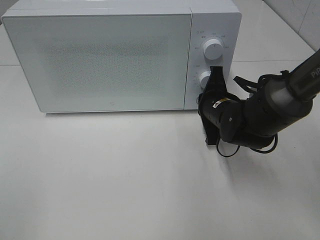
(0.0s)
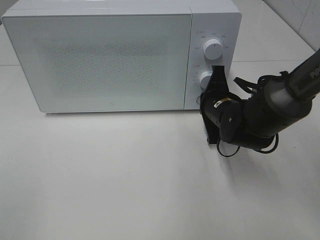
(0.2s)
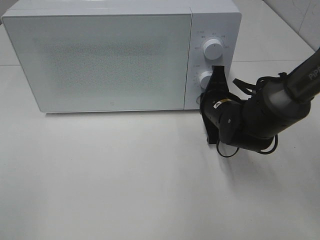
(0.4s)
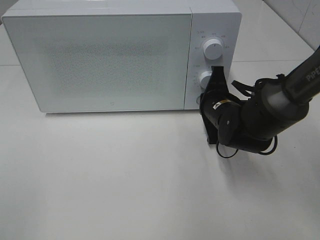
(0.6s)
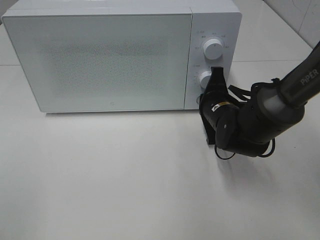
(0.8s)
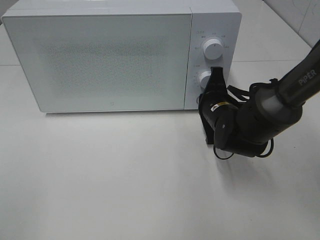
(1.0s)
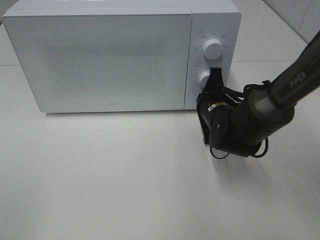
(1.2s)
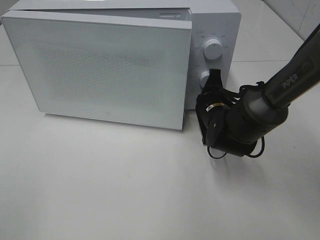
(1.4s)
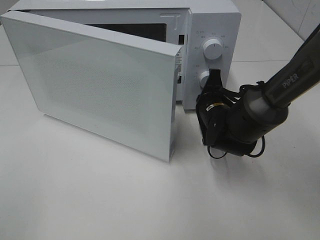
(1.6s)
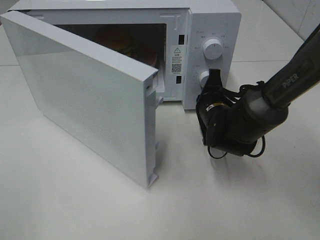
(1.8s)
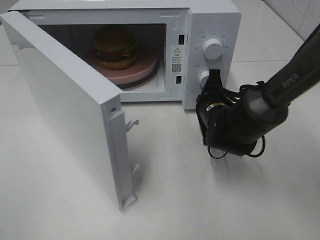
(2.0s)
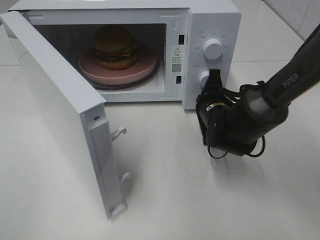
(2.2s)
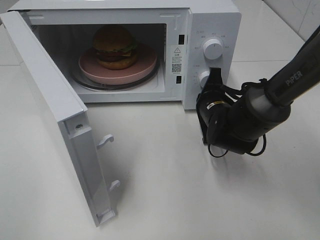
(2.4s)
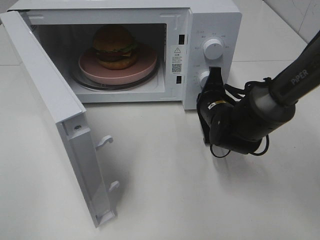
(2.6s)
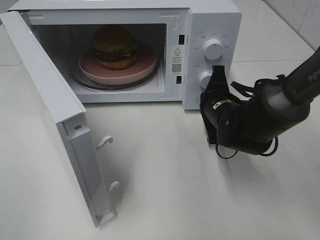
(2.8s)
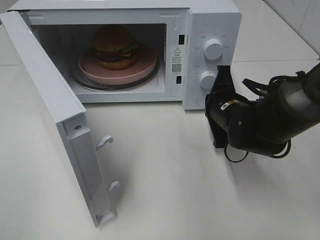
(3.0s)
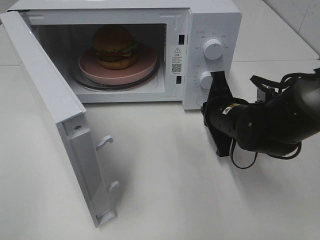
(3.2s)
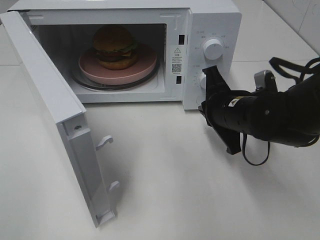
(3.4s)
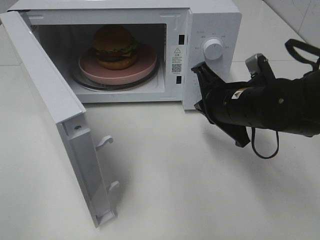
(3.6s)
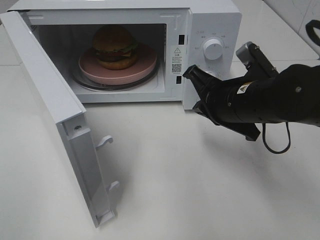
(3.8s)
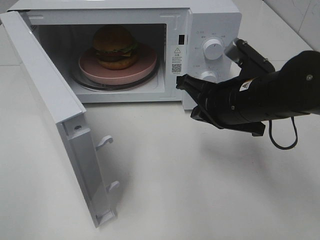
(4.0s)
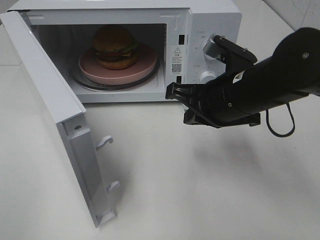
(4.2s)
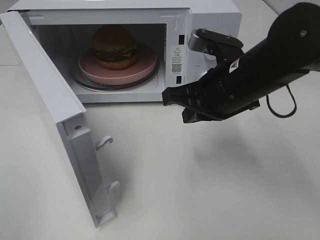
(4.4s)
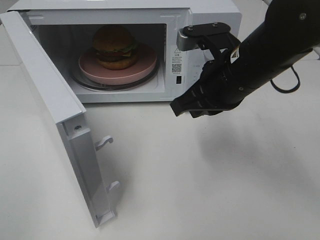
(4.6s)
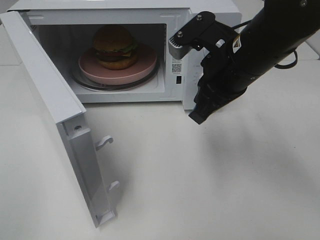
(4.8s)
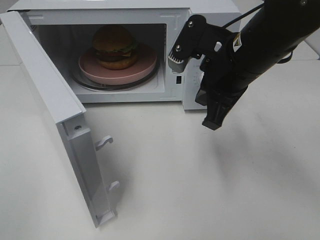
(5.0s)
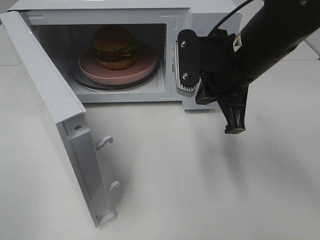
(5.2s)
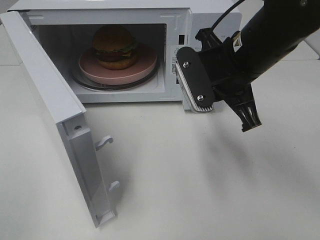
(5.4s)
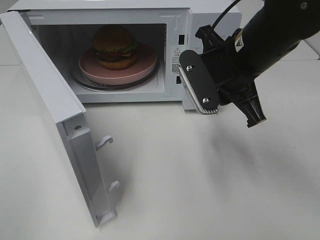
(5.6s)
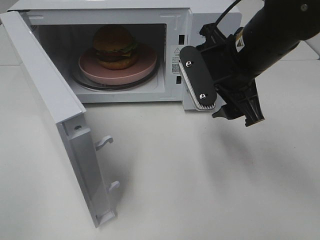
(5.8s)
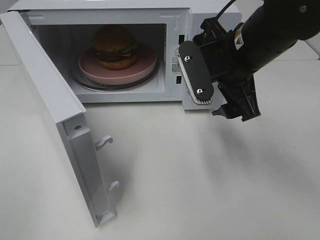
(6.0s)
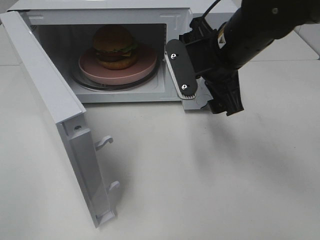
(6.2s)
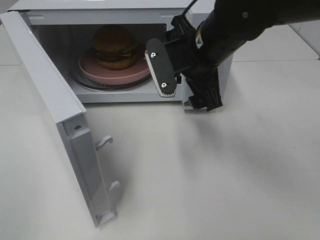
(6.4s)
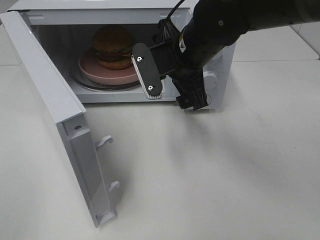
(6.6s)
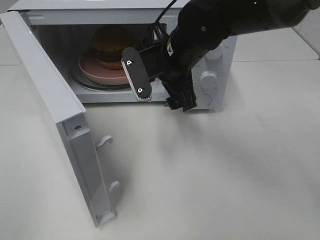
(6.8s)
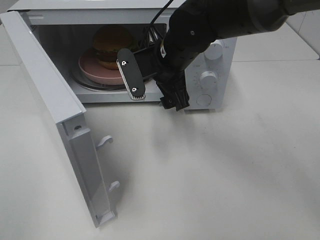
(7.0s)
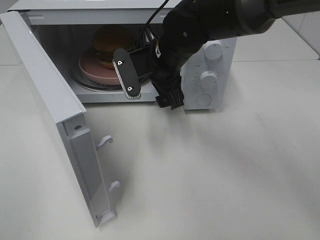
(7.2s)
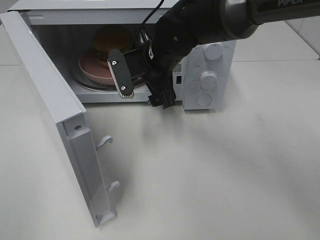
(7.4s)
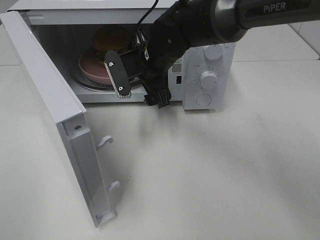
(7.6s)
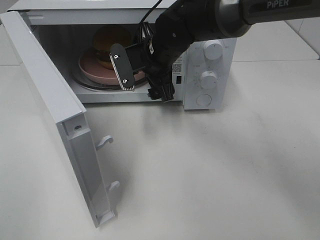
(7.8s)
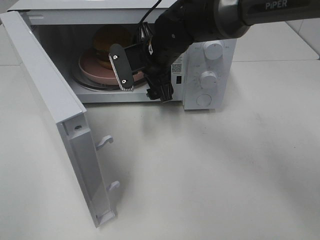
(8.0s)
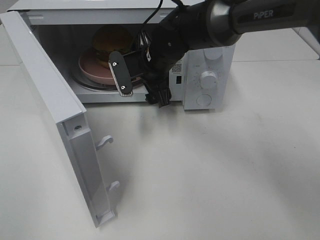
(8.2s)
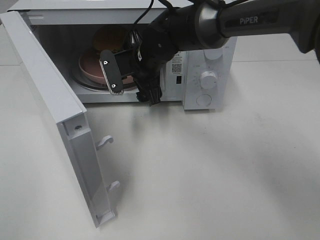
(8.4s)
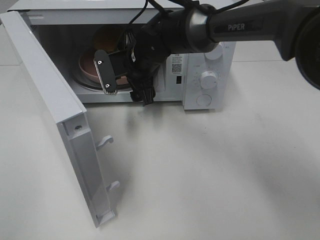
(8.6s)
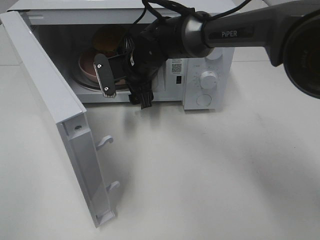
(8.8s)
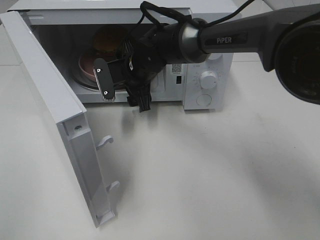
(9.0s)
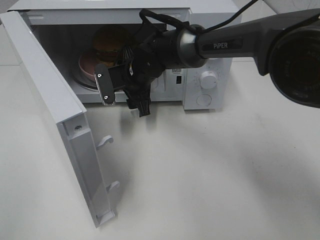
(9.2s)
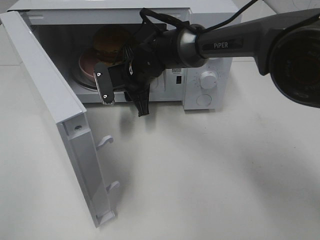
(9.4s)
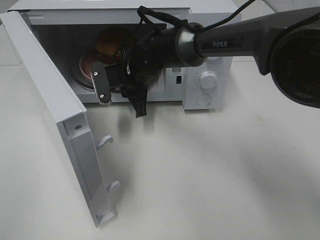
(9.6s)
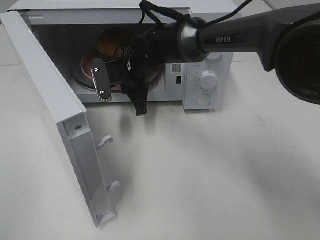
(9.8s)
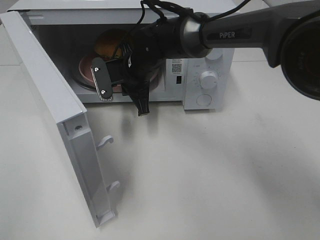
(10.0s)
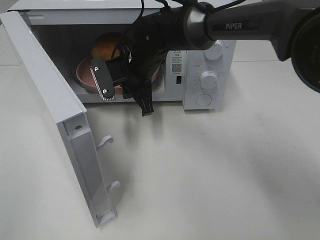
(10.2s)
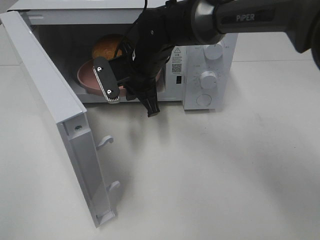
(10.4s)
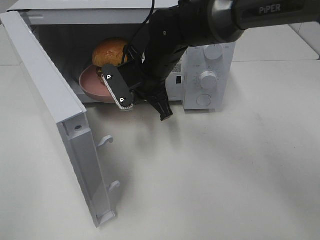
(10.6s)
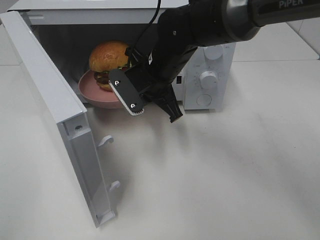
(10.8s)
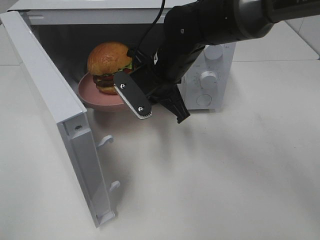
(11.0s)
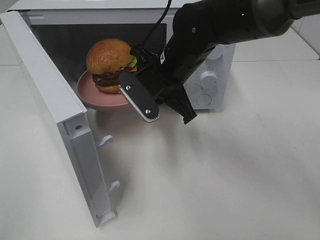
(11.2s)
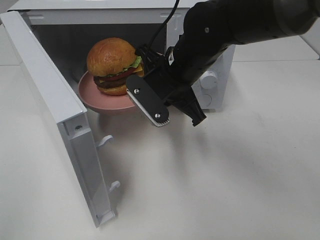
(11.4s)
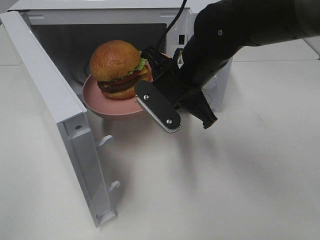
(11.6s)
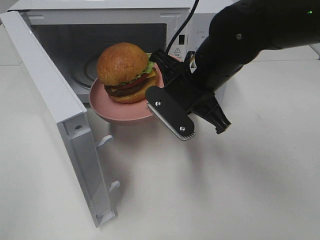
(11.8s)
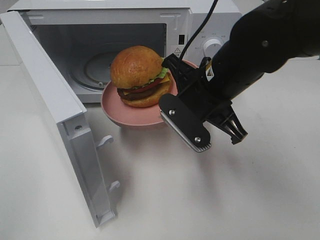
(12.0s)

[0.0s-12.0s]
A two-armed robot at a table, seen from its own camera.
Task of the whole recording: Heat the burger.
Step, 0.0s to 2.8s: Right hand: press the switch.
Step, 3.0s to 9.6s: Right hand: grab the plate with the hamburger.
0.0s to 1.6s: The grippers stay close to where they were, moving slightly.
3.0s to 4.4s: The right gripper moves upward and backward, about 10 cm.
4.4s to 6.0s: The right gripper opens its fingers.
6.0s to 7.6s: The right gripper heads to the left, forward and downward, covering some 15 cm.
7.6s to 9.0s: The right gripper shifts by some 5 cm.
9.0s to 10.4s: The right gripper closes up.
10.4s to 12.0s: The right gripper goes roughly 15 cm backward and to the right.

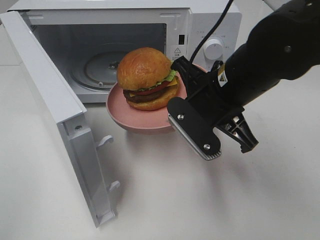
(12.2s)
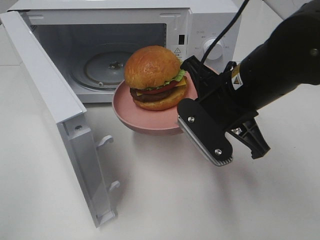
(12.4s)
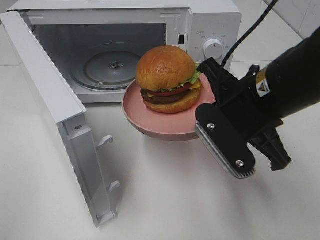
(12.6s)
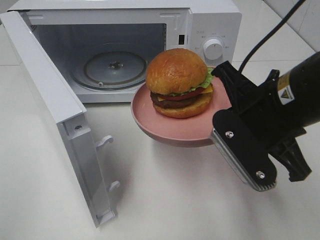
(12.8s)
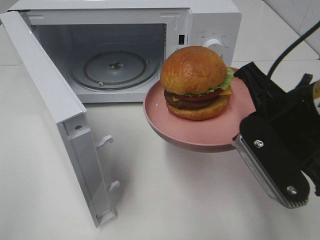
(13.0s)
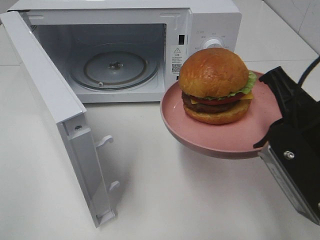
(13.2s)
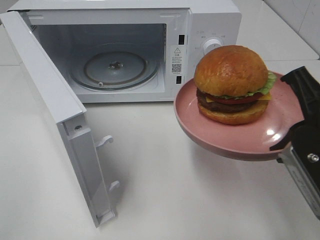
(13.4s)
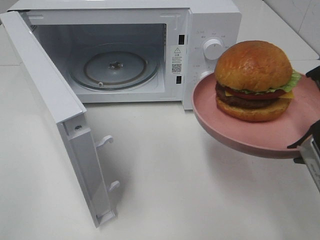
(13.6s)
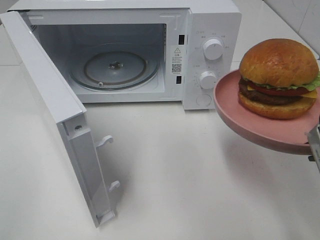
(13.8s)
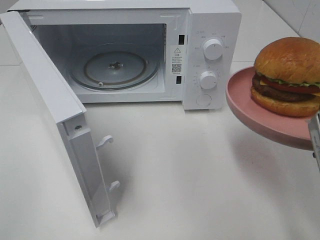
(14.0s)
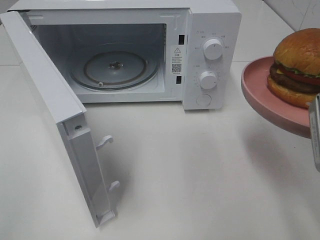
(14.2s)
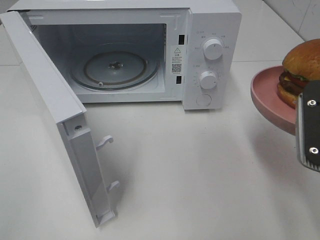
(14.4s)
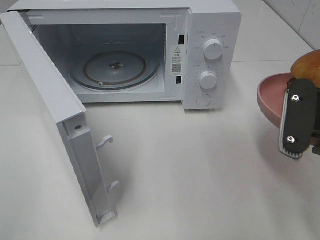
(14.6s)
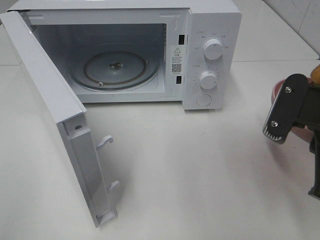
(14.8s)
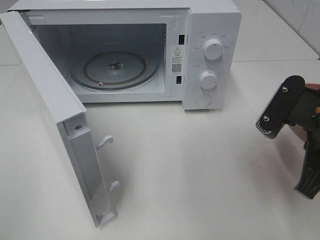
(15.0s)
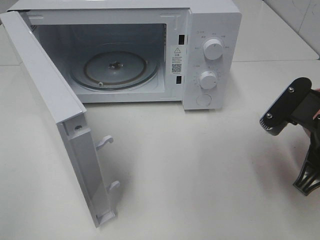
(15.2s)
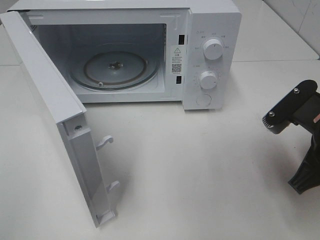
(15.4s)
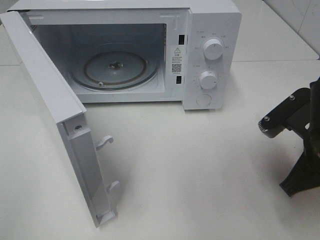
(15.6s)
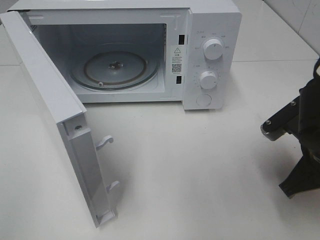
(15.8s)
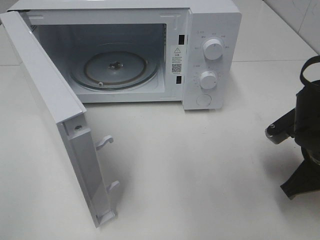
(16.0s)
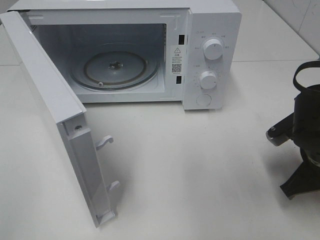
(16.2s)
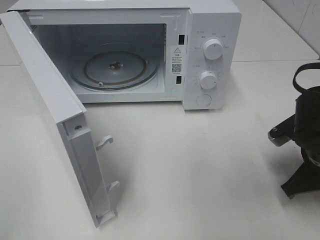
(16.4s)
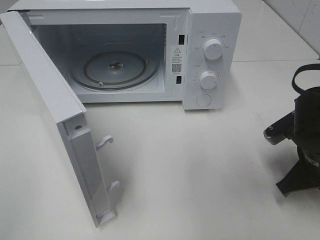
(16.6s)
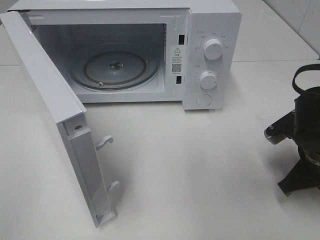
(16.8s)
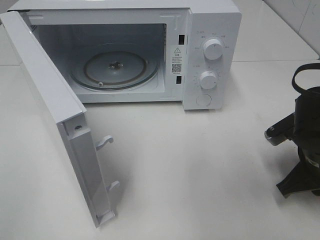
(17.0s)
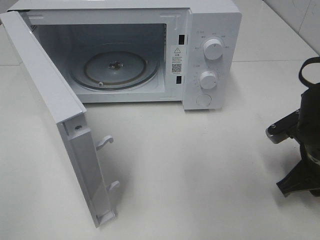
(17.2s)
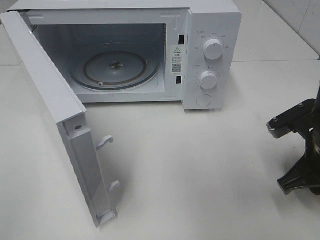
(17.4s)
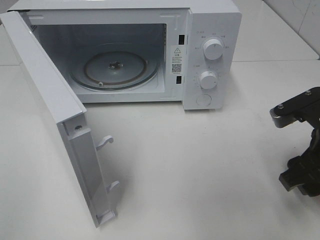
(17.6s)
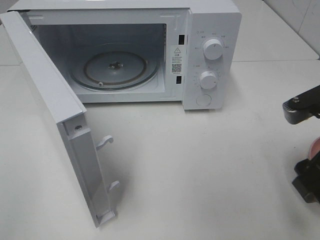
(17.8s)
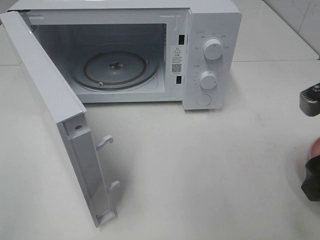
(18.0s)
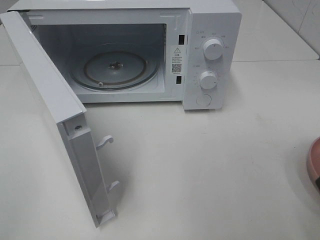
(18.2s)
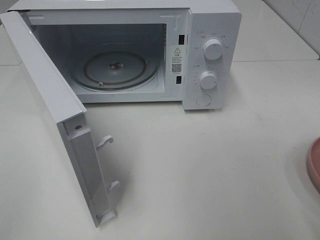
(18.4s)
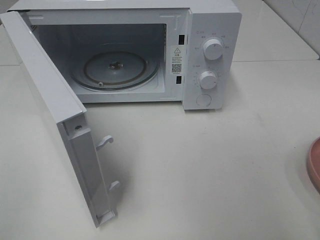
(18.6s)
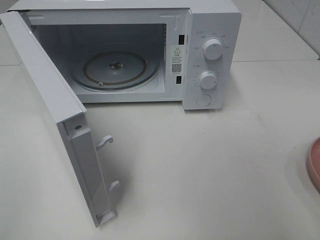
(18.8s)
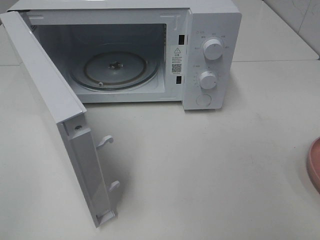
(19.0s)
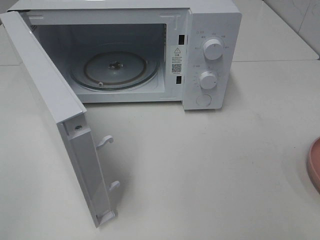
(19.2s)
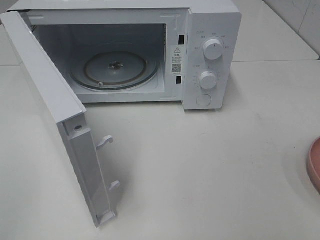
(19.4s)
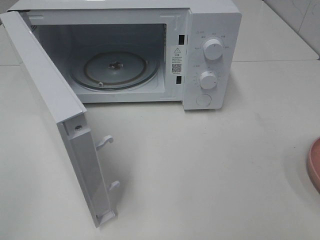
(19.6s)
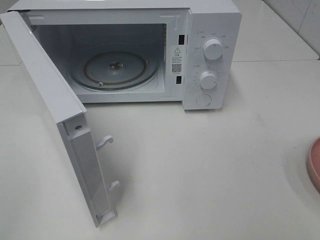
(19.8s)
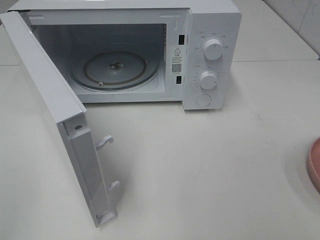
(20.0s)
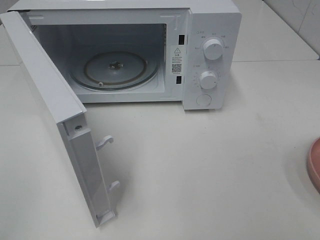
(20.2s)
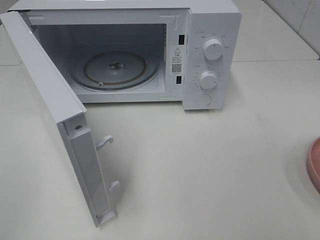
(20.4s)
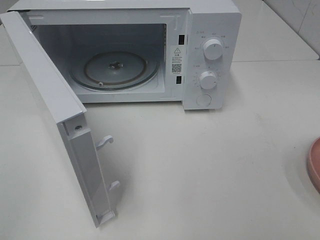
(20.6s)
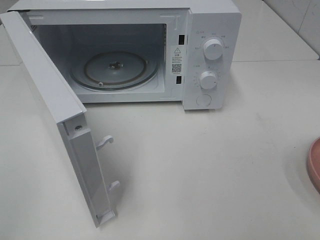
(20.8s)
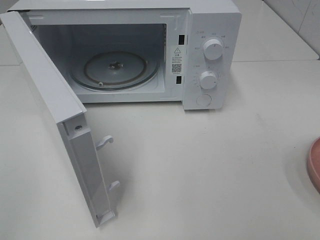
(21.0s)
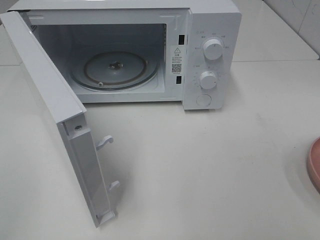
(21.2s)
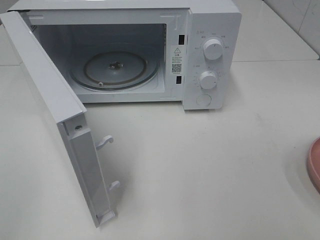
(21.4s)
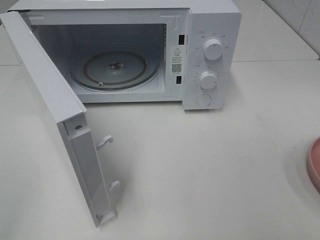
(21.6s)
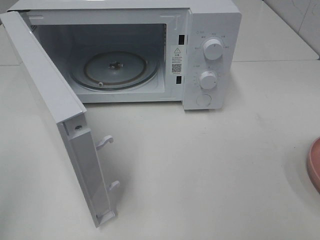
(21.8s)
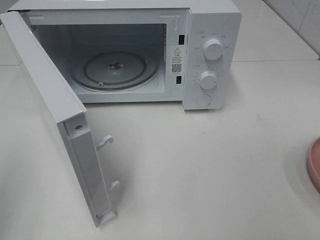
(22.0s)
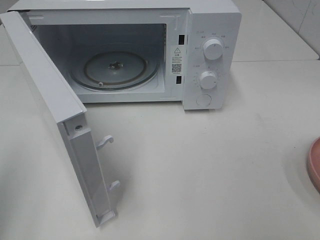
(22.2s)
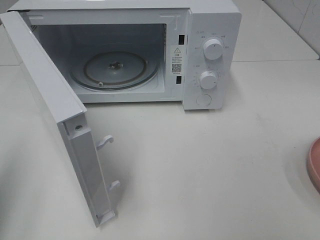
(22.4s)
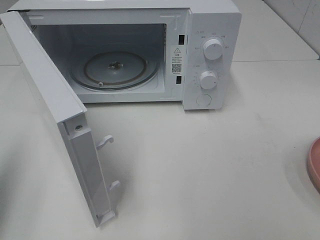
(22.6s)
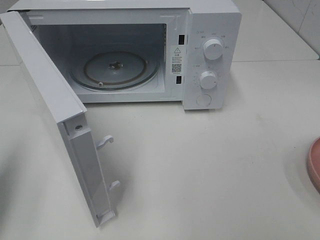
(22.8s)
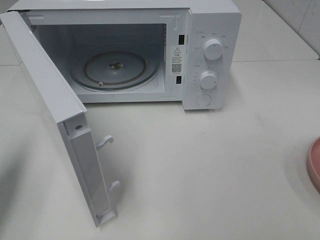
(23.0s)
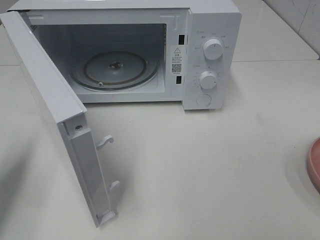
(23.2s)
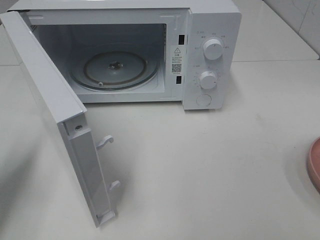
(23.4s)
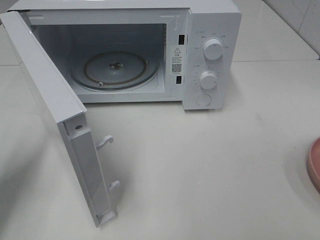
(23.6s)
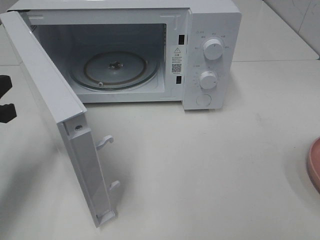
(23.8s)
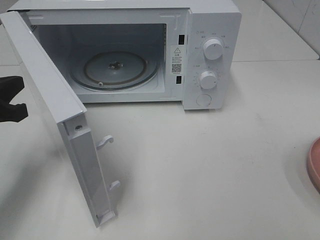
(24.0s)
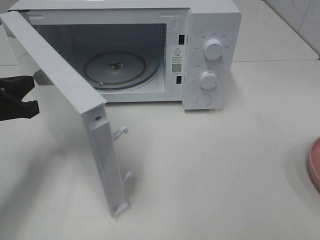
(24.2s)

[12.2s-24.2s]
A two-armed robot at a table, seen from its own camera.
Task of the whole recording: Heat the burger.
Step, 12.2s to 17.2s: Right hand: place the plate on the table.
12.2s to 13.8s: The right gripper heads backward, to the right and upward, covering approximately 20 cm.
13.8s to 15.2s: The right gripper is displaced downward and forward by approximately 10 cm.
15.2s to 16.6s: The right gripper heads downward, covering roughly 10 cm.
16.6s to 18.2s: The right gripper is displaced upward and backward by about 20 cm, and opens.
18.2s to 19.8s: The right gripper travels backward and to the right by approximately 15 cm.
19.8s to 21.2s: Both grippers stay put.
21.2s to 22.6s: The left gripper is displaced forward by roughly 15 cm, and closes.
22.6s to 24.2s: The left gripper is displaced forward, downward and to the right by roughly 15 cm.
